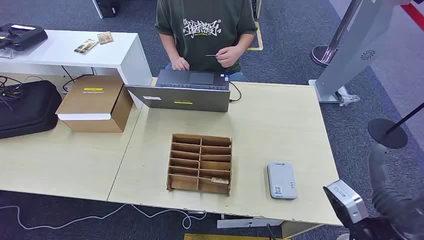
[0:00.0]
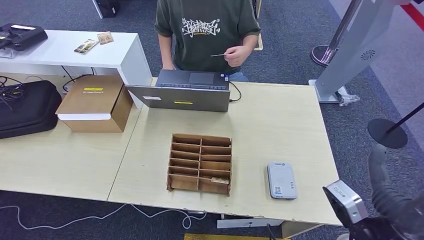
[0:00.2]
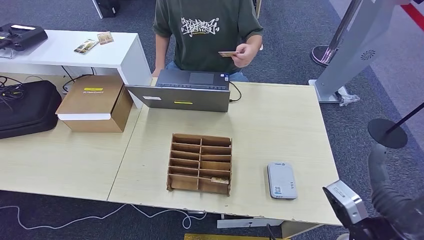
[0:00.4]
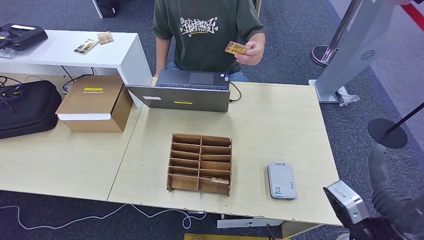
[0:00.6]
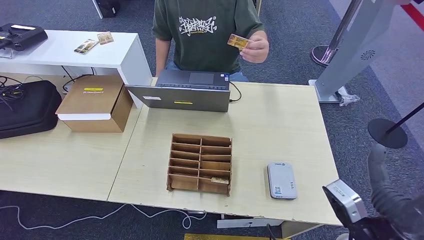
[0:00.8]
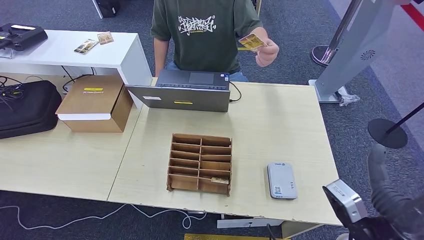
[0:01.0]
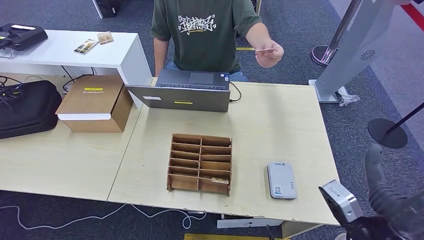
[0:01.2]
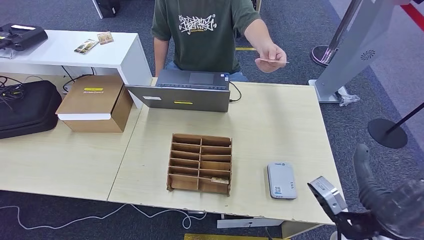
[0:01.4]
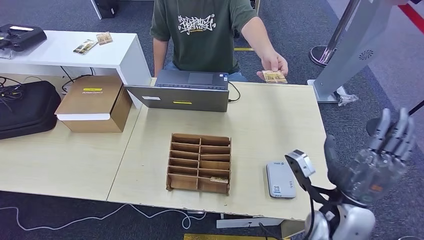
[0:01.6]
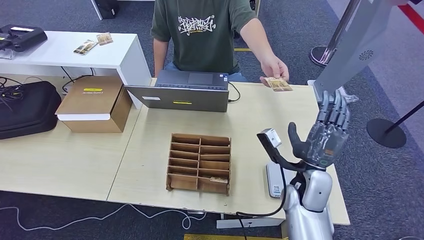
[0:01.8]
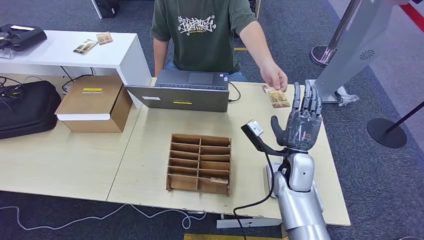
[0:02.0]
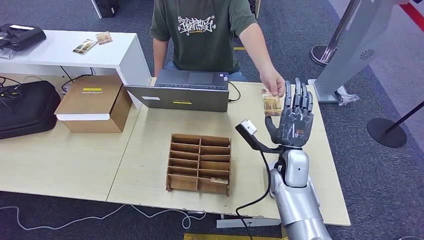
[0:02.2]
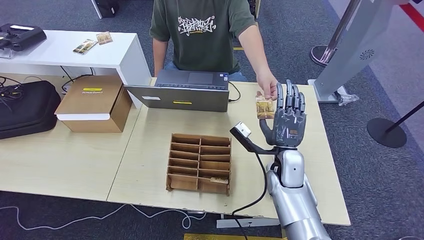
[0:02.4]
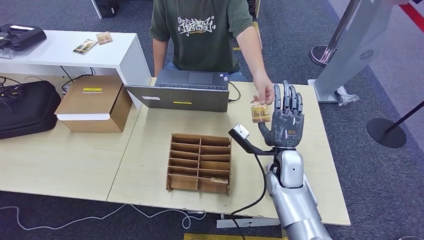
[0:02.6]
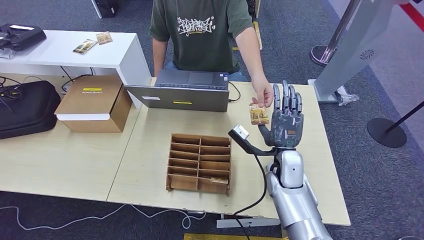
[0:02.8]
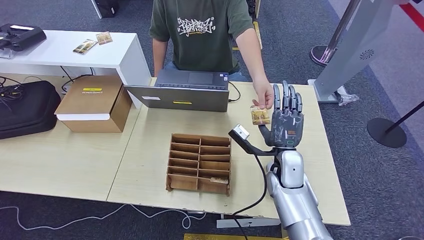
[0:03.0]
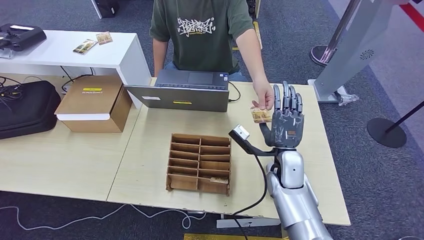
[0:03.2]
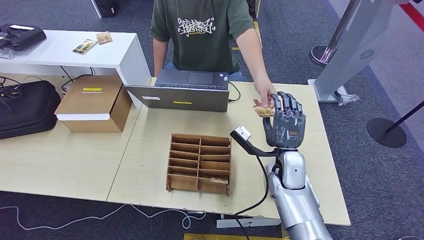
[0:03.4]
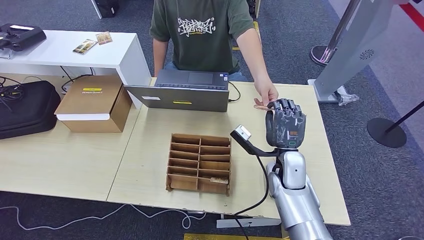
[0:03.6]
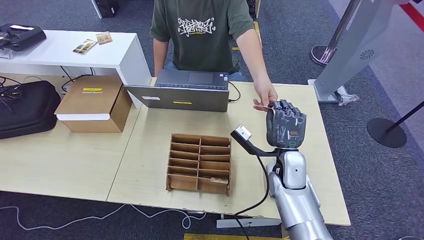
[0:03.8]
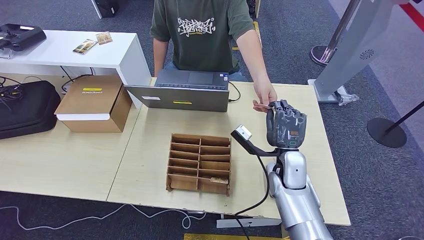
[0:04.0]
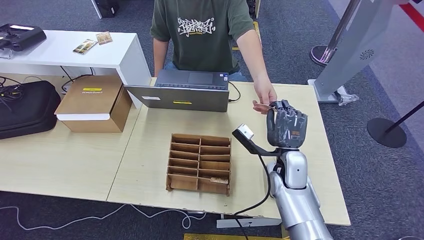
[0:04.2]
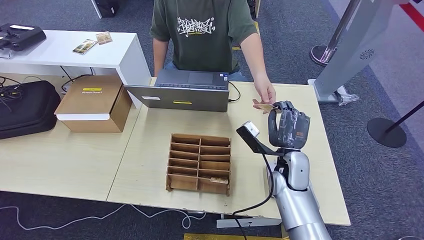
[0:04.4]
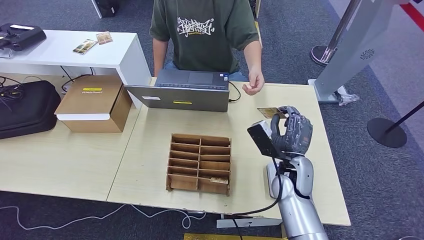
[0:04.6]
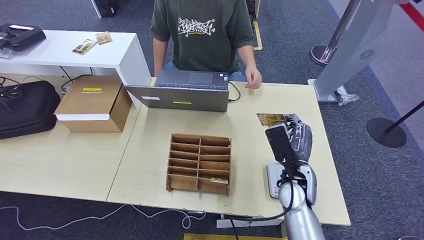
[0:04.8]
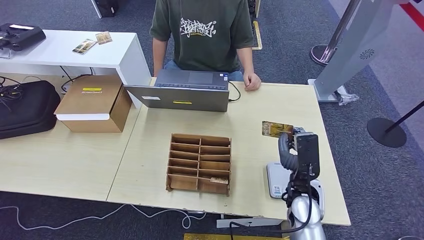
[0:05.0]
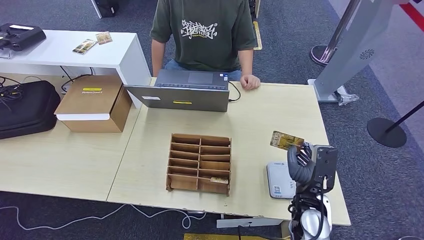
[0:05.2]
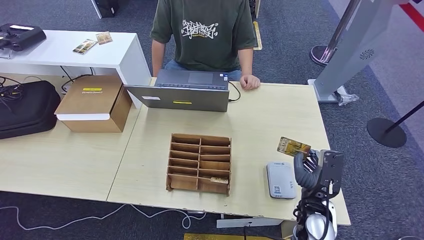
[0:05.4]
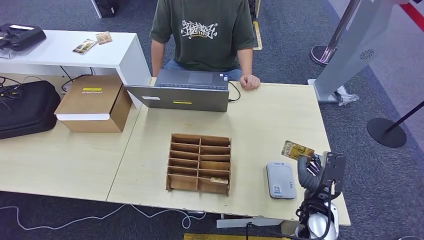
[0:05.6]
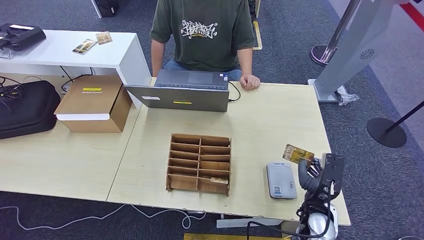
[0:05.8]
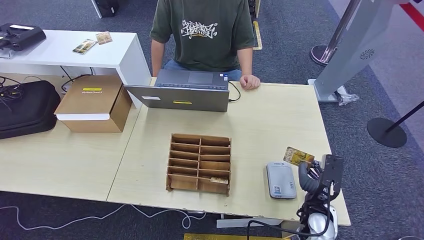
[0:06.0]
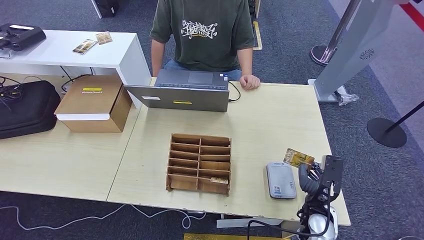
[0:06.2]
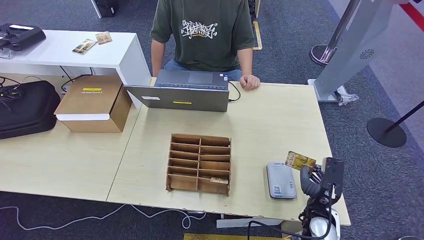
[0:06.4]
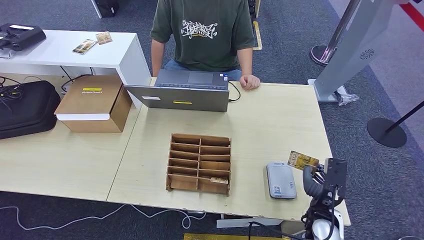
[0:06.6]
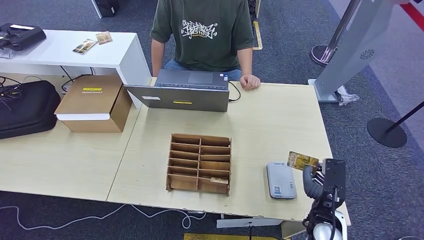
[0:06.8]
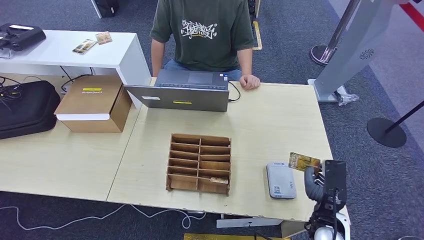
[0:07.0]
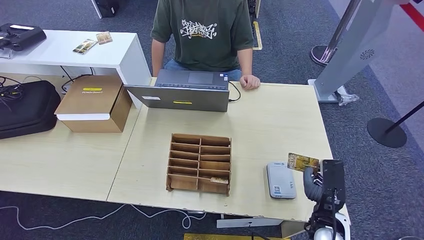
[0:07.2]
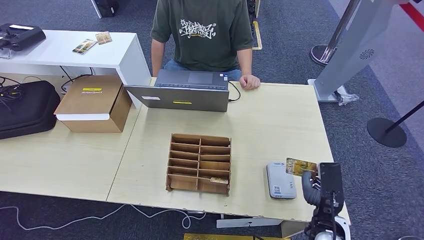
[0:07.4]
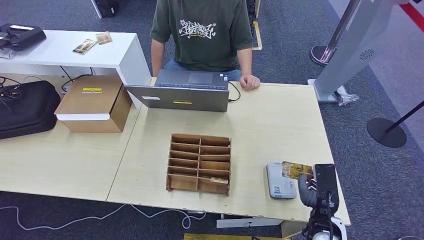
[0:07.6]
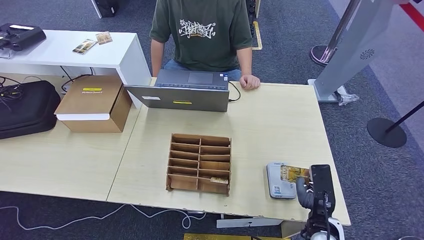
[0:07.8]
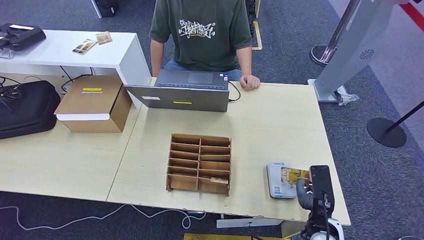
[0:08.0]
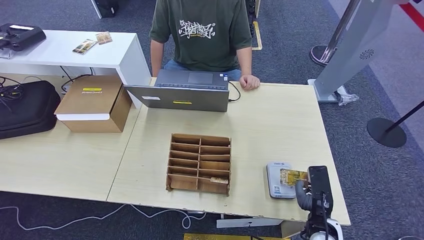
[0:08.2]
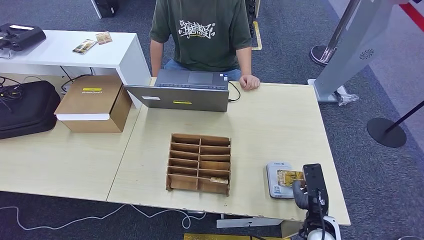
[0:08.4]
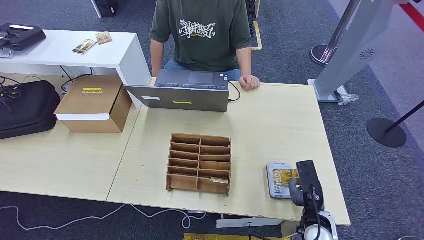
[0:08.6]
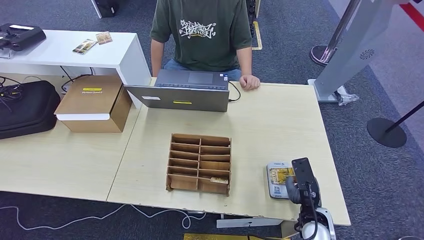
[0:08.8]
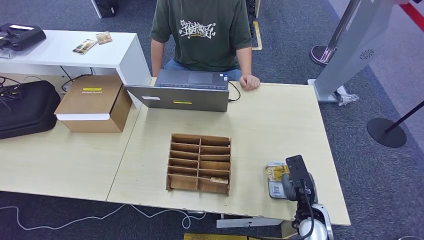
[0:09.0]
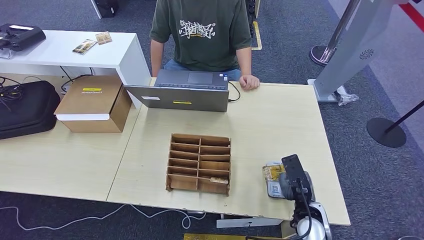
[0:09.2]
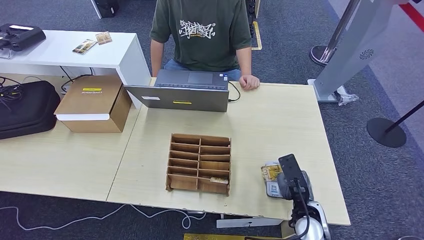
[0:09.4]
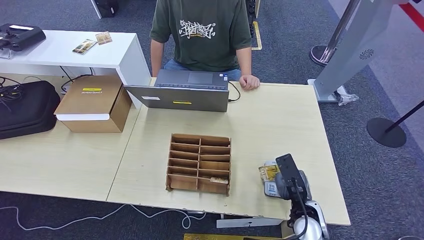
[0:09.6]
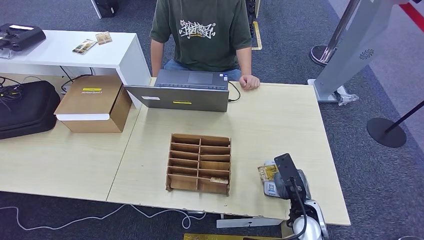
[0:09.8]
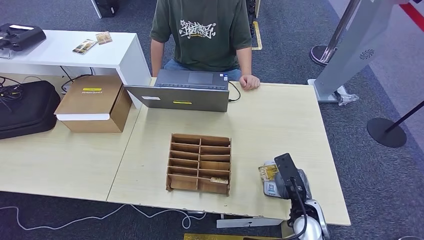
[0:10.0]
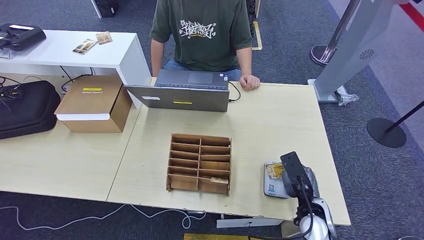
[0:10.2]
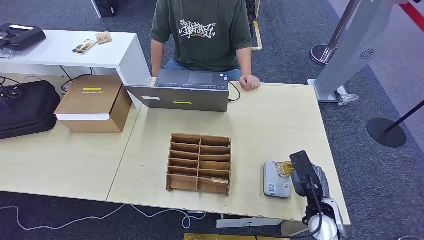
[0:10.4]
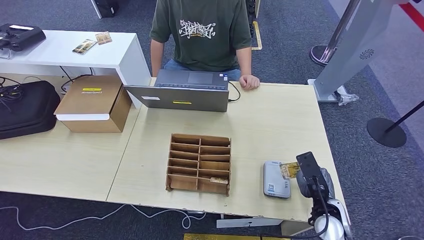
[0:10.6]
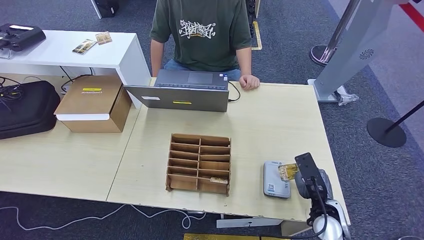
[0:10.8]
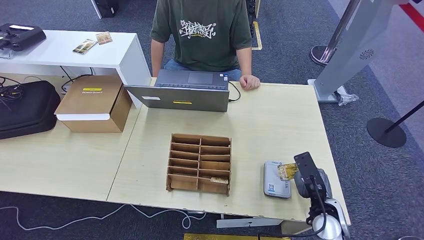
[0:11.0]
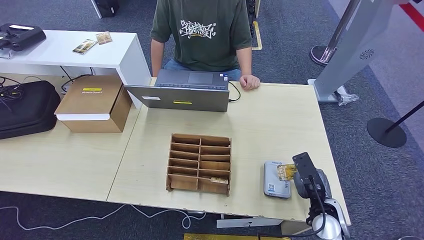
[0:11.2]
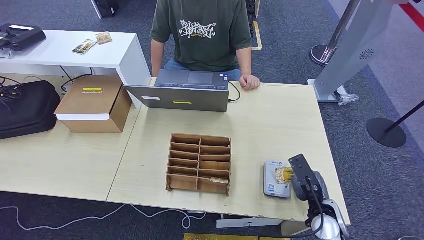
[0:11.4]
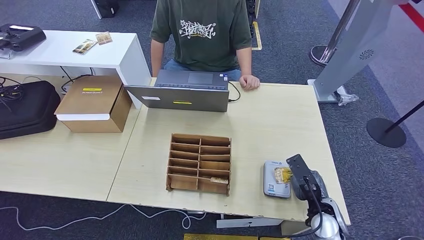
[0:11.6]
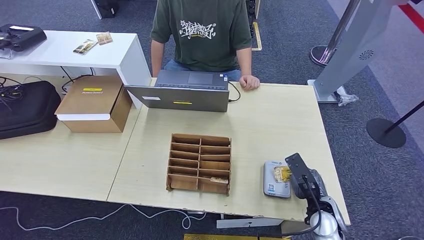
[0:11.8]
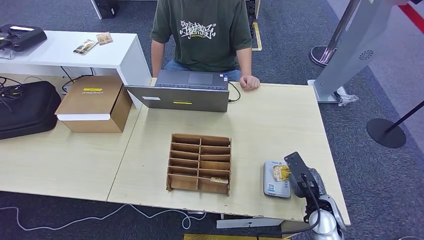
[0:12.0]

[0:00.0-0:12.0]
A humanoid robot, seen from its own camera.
Step, 0:00.0 to 0:05.0: Take the ID card from the person's hand.
Step, 0:05.2 to 0:09.8: Place the ID card on the card reader.
0:01.6 to 0:03.0: The right hand moves forward, downward and to the left, some 15 cm.
0:03.0 to 0:04.4: The hands stay close to where they were, moving slightly.
0:04.4 to 0:06.0: The right hand goes about 15 cm backward, downward and to the right.
0:06.0 to 0:07.6: The hands stay close to where they were, moving slightly.
0:07.6 to 0:09.0: The hands stay close to where they were, moving slightly.
0:09.0 to 0:12.0: The hands move only a little.

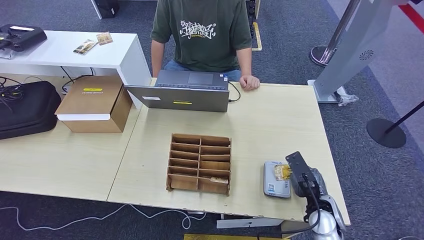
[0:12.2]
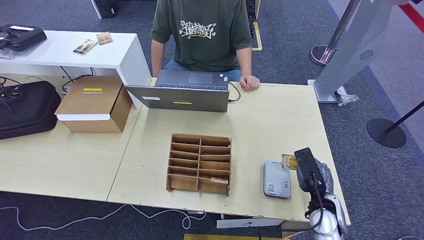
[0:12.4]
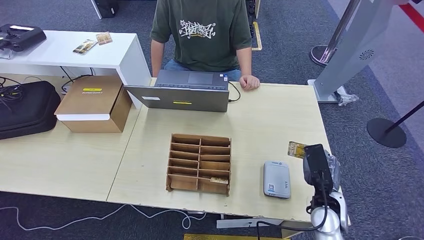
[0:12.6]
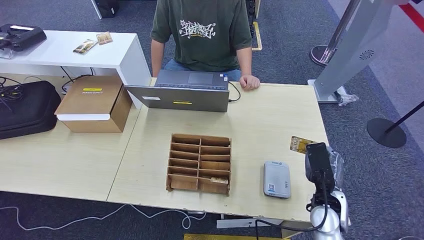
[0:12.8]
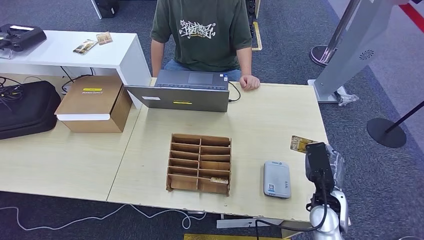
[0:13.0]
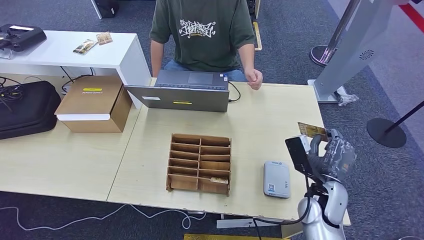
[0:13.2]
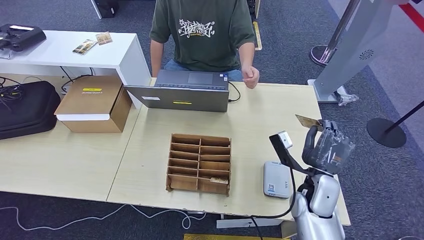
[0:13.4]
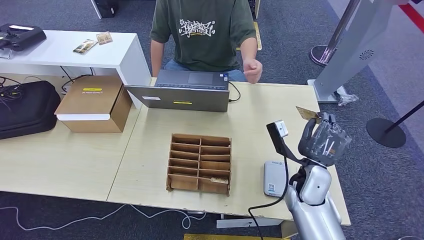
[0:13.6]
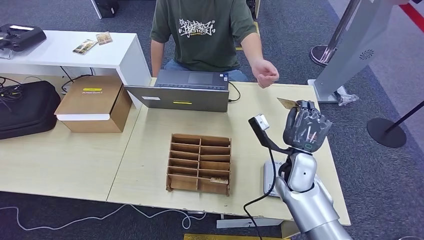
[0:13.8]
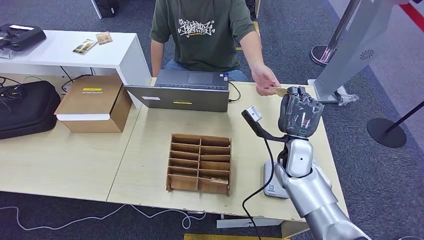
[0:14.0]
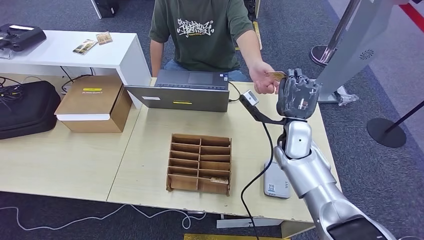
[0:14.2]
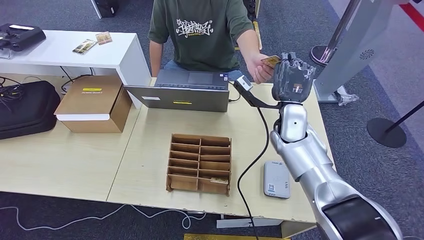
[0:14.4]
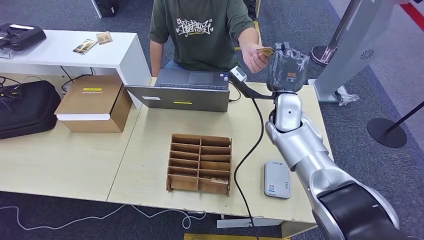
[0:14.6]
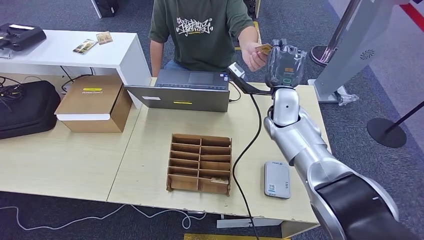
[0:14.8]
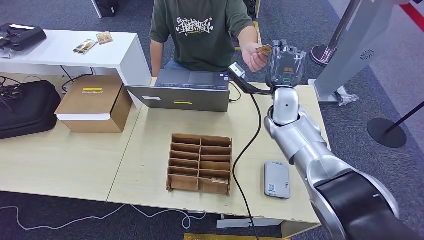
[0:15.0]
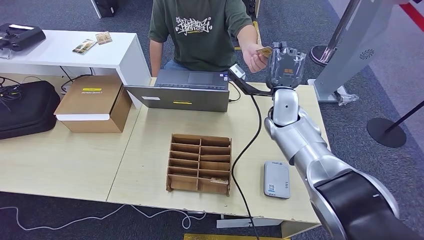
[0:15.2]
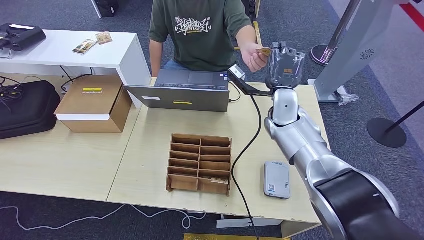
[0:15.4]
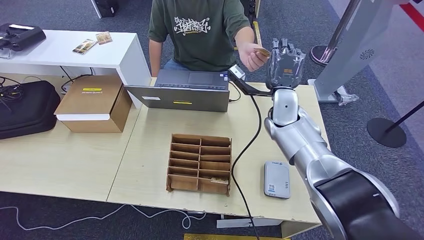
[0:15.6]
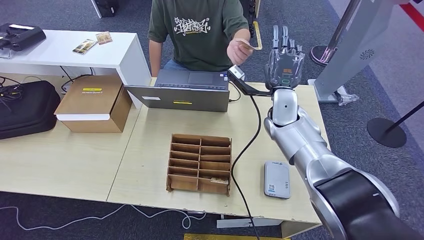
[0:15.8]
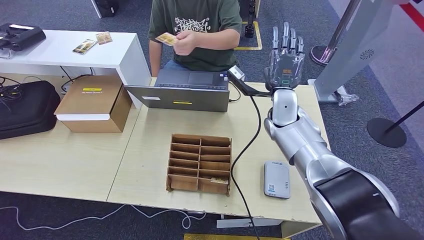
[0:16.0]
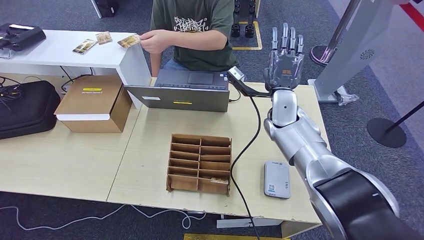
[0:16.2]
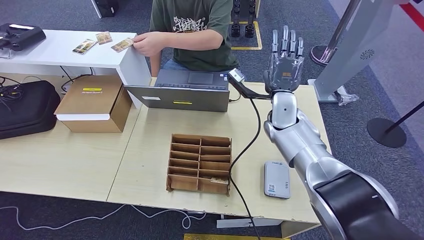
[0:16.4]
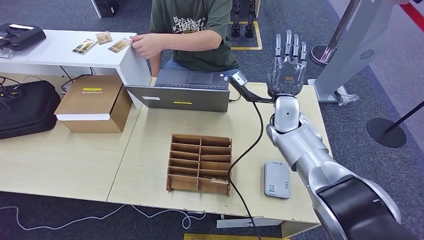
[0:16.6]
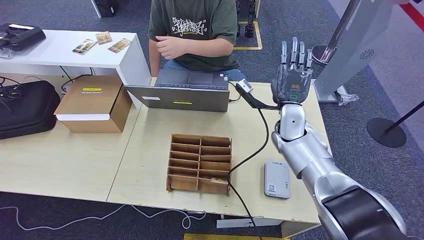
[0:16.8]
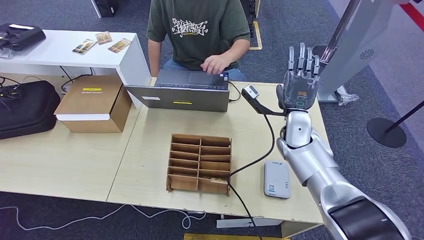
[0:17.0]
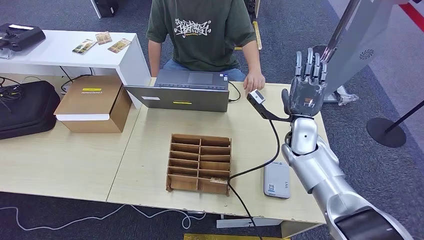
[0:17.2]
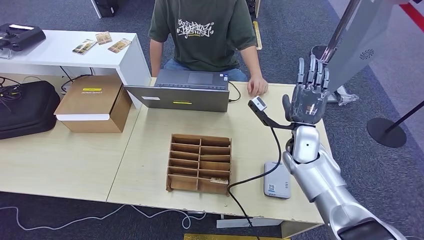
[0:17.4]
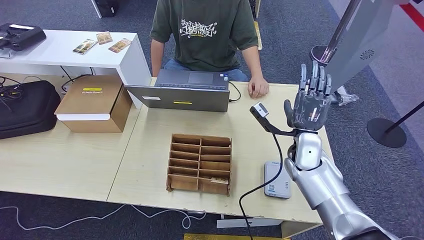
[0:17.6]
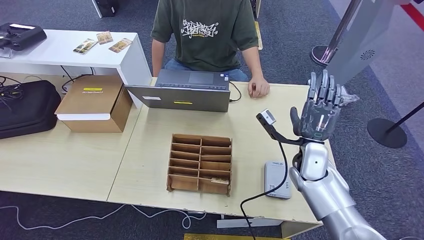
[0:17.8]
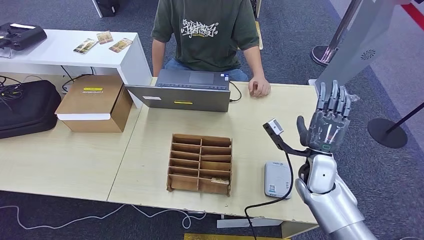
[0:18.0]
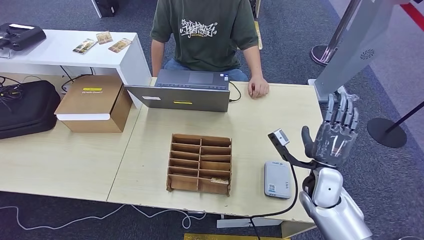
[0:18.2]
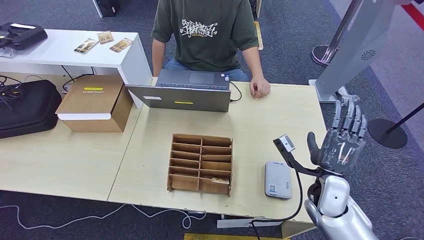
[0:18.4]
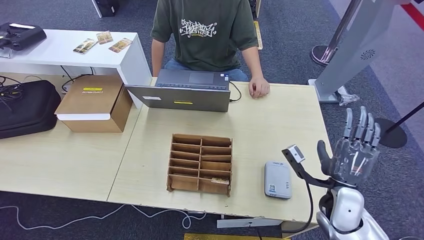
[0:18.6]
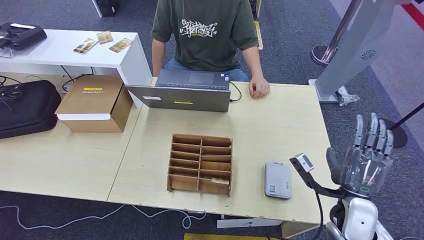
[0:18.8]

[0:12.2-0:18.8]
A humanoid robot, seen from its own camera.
Step, 0:12.2 to 0:16.0: Hand the ID card to the person.
0:12.2 to 0:13.8: The right hand travels forward, upward and to the left by about 15 cm.
0:13.8 to 0:15.4: The right hand shifts some 15 cm forward and upward.
0:15.4 to 0:17.2: The right hand moves downward and backward, approximately 10 cm.
0:17.2 to 0:18.8: The right hand is displaced backward by about 20 cm.
